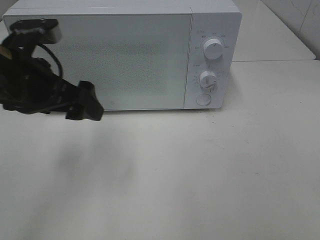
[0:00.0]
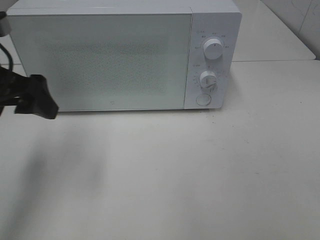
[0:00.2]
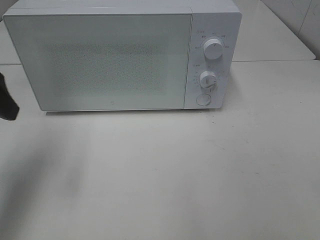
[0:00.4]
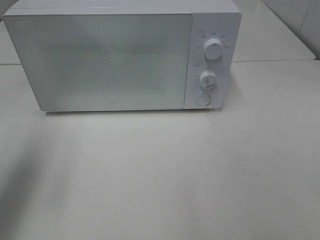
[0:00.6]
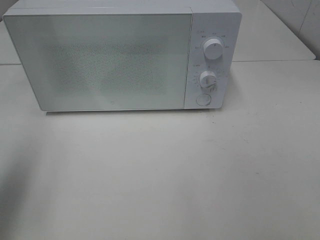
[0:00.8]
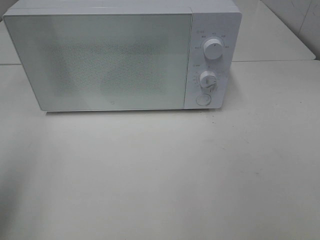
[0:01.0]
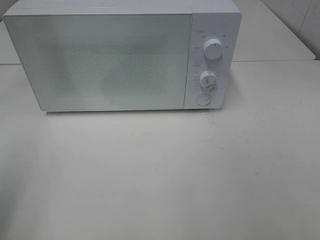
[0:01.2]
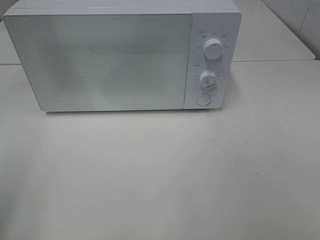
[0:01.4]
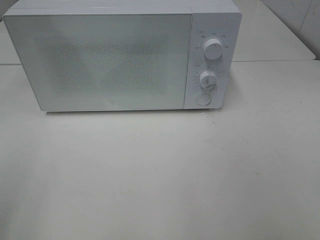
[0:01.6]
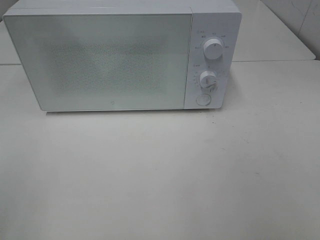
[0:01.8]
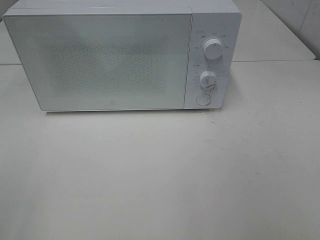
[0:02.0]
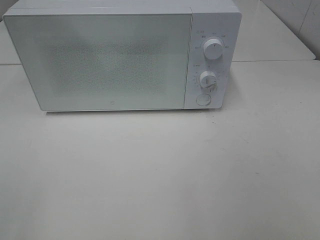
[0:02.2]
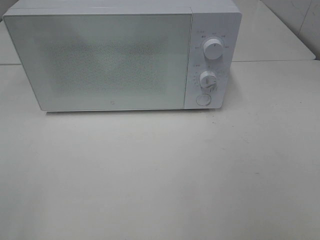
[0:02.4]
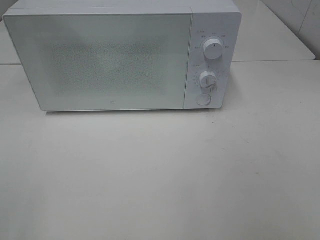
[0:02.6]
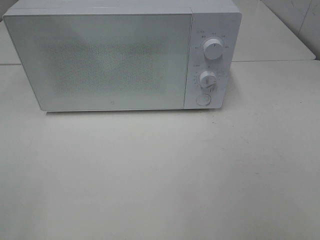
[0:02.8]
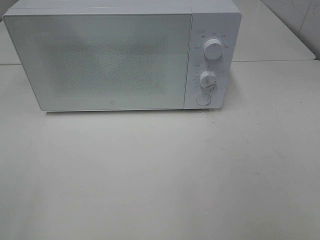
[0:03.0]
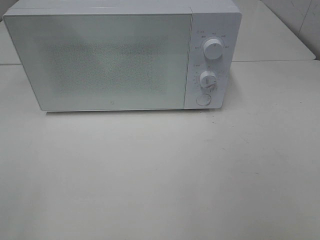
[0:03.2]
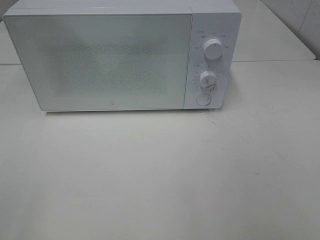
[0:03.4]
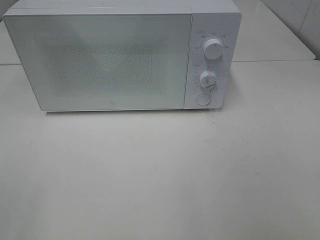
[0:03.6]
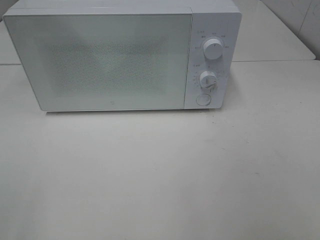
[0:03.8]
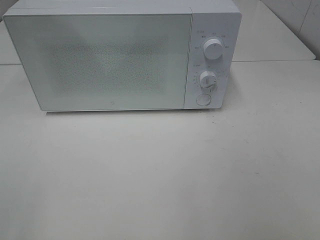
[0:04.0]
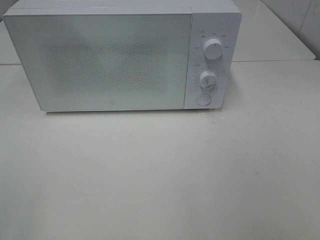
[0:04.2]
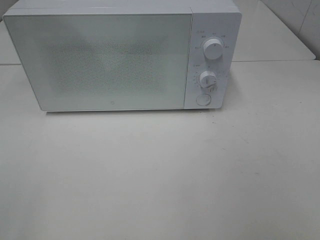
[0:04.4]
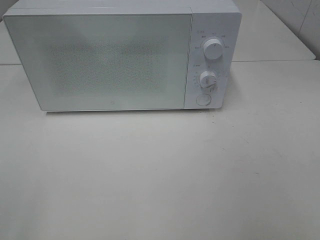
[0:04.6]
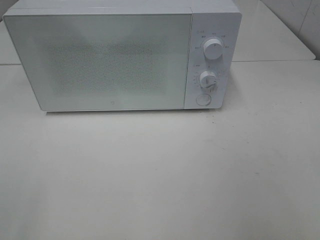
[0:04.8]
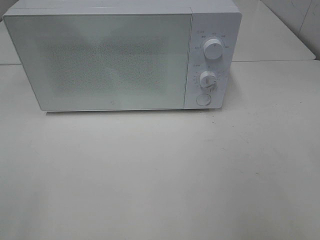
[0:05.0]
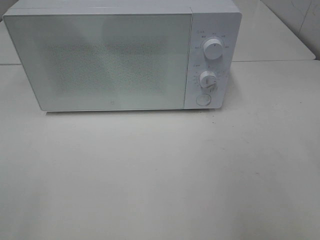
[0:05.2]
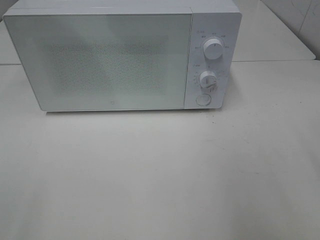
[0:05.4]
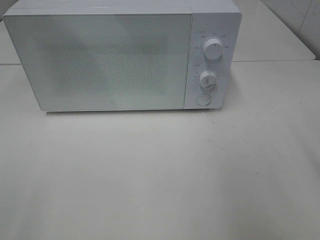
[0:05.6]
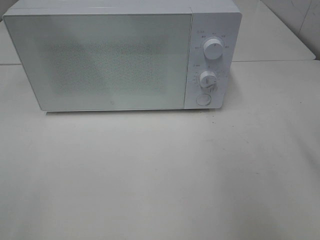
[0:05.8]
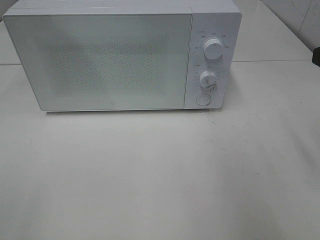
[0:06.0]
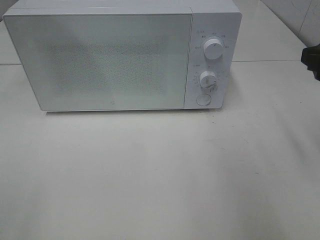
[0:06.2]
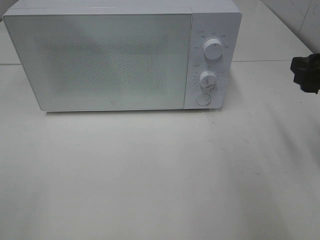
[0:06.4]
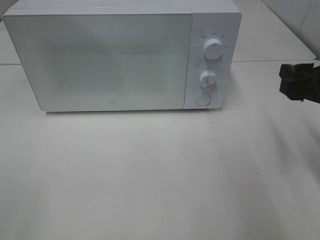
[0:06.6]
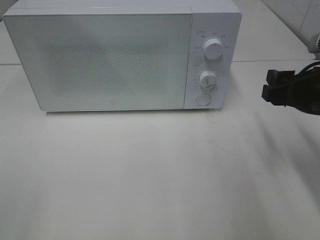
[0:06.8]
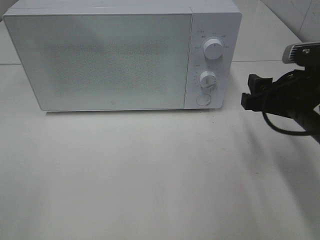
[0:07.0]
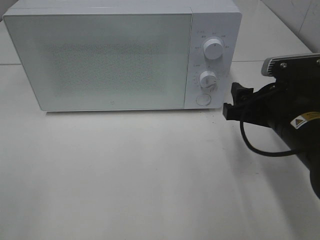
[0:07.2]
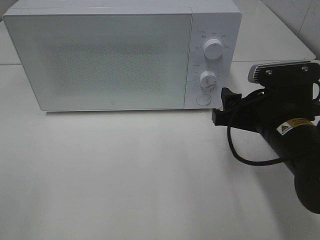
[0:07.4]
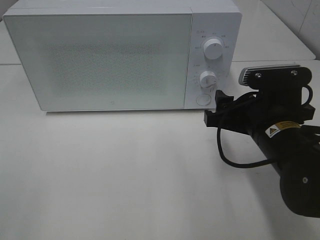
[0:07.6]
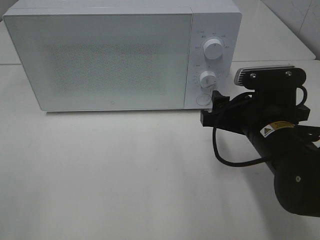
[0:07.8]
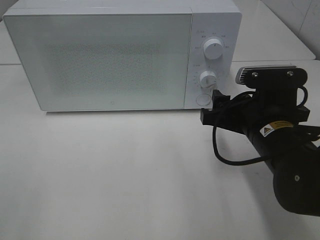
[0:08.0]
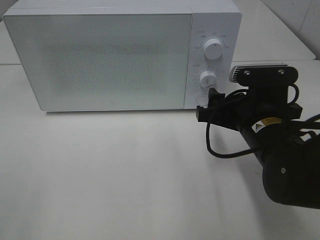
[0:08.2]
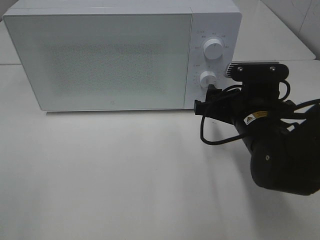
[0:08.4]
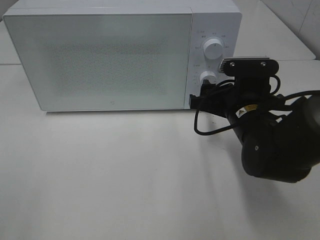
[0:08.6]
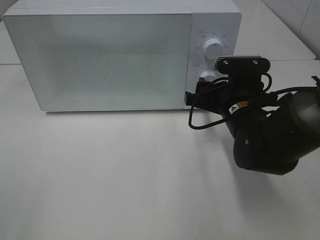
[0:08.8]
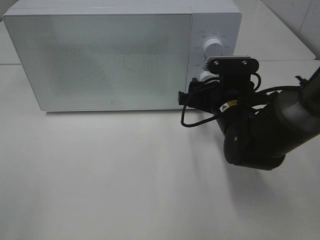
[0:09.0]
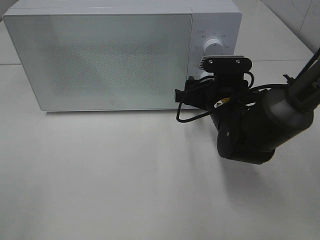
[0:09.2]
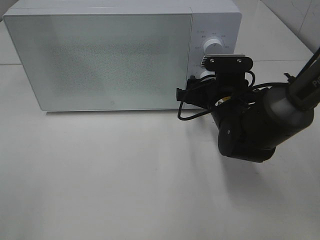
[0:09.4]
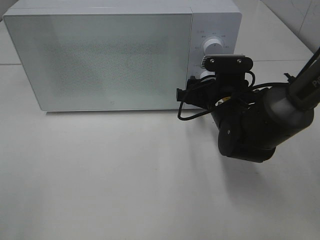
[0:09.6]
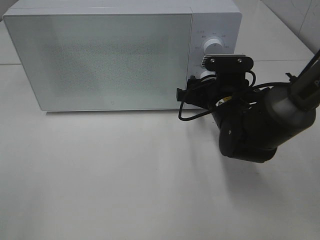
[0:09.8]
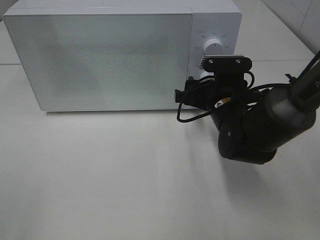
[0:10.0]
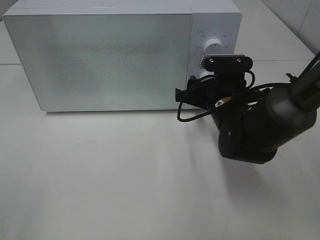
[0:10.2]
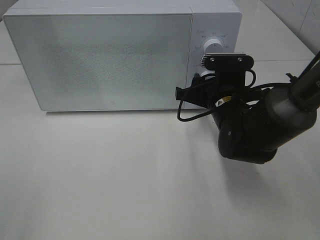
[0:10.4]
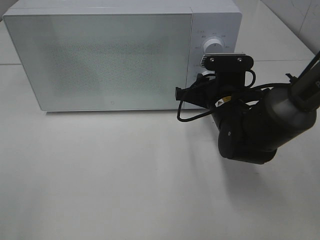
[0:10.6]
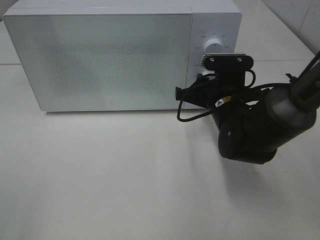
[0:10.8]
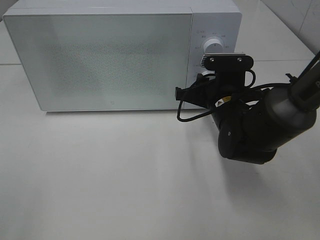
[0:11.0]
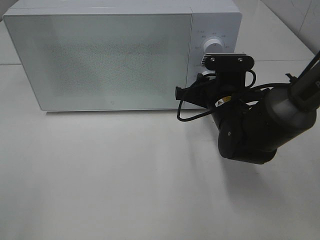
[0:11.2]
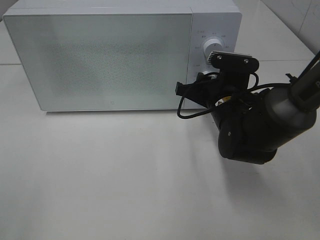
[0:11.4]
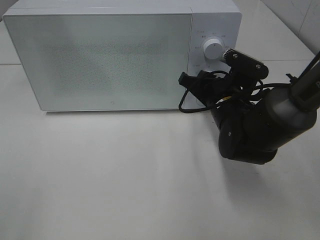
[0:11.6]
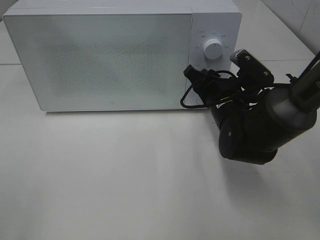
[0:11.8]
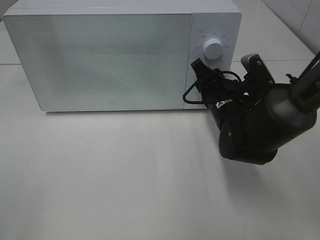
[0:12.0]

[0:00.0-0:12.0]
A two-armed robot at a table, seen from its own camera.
Task of the whole recording: Heat Sandwich.
0:00.0 to 0:01.6: The left gripper goes about 25 cm backward and to the left.
0:03.0 to 0:04.4: Neither gripper changes place.
0:06.0 to 0:07.6: The right gripper is displaced downward and to the left by approximately 15 cm.
0:07.6 to 0:09.0: The right gripper goes about 10 cm forward.
0:09.0 to 0:10.4: The grippers stay close to where they were, moving slightly.

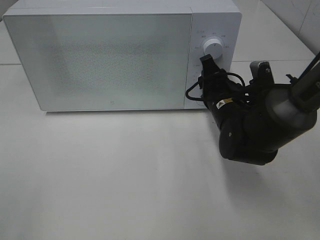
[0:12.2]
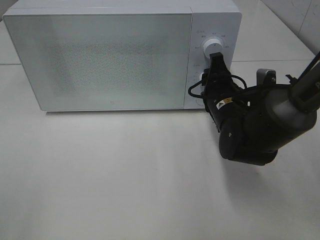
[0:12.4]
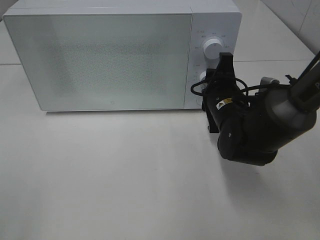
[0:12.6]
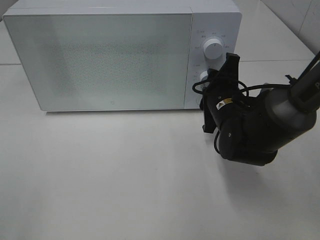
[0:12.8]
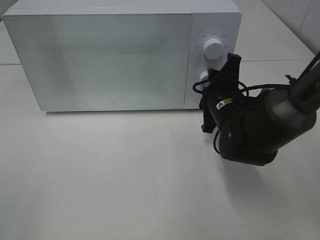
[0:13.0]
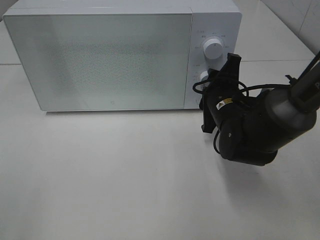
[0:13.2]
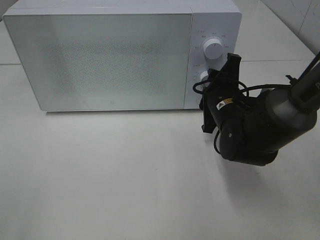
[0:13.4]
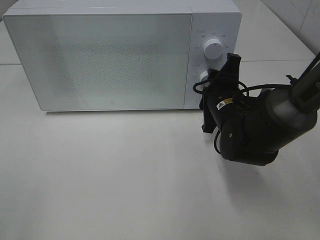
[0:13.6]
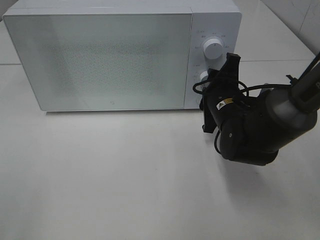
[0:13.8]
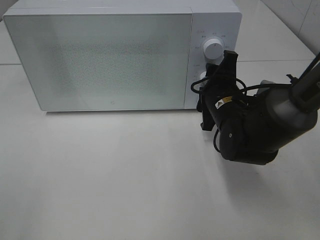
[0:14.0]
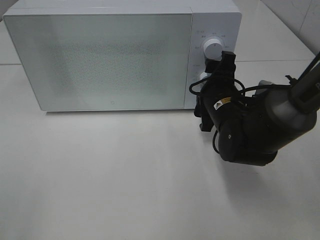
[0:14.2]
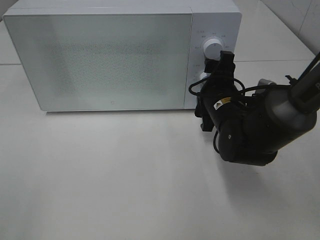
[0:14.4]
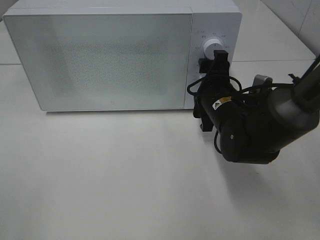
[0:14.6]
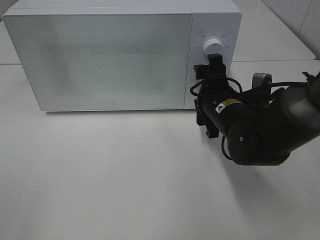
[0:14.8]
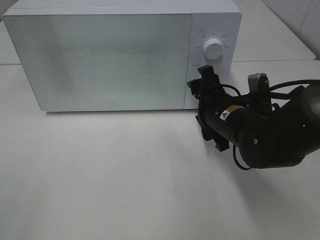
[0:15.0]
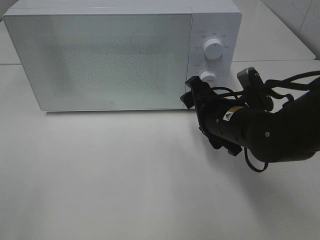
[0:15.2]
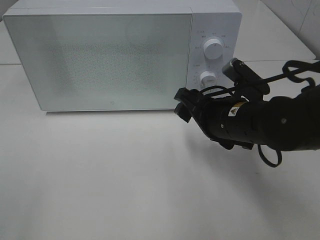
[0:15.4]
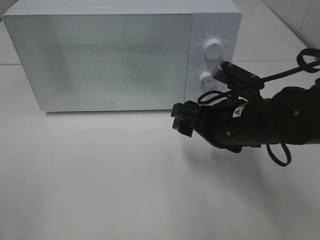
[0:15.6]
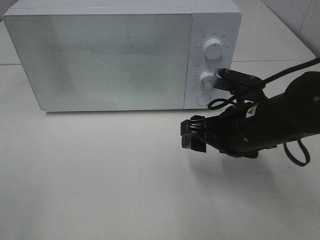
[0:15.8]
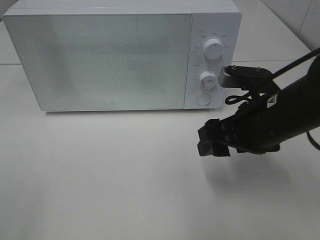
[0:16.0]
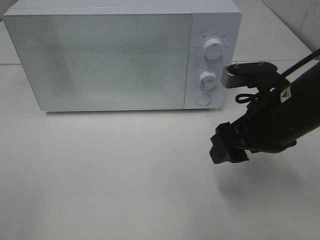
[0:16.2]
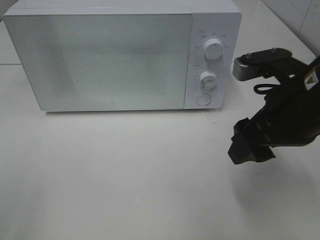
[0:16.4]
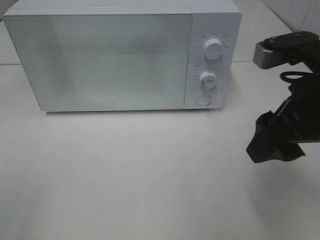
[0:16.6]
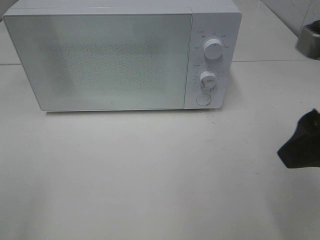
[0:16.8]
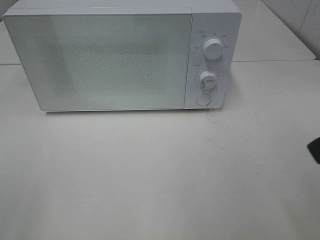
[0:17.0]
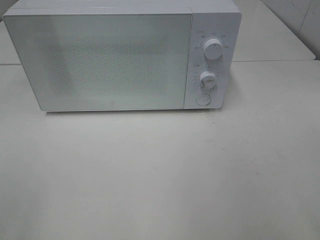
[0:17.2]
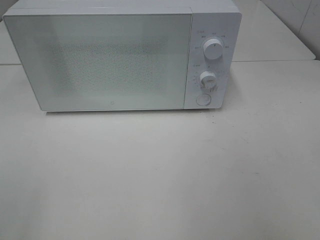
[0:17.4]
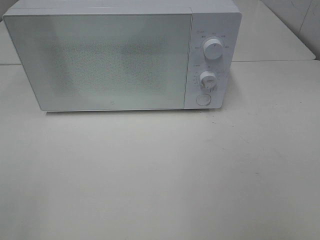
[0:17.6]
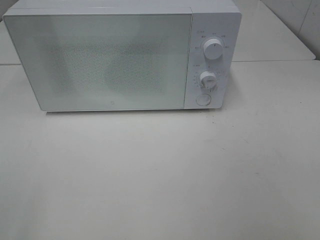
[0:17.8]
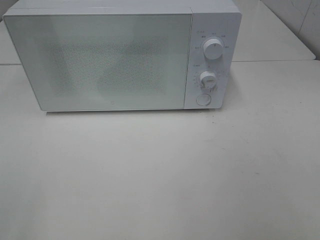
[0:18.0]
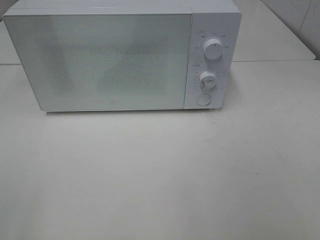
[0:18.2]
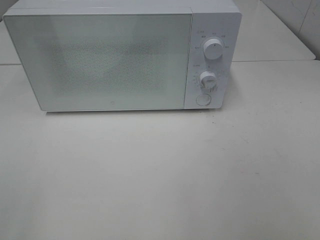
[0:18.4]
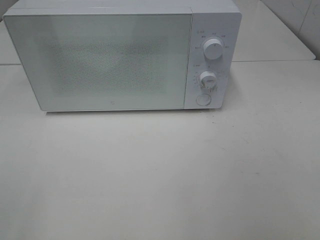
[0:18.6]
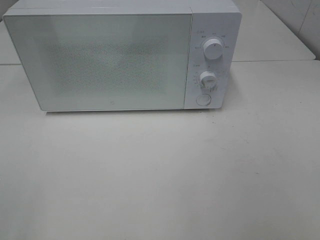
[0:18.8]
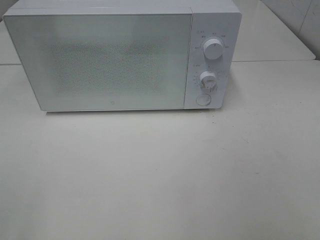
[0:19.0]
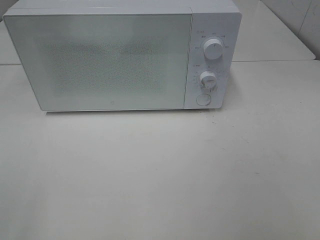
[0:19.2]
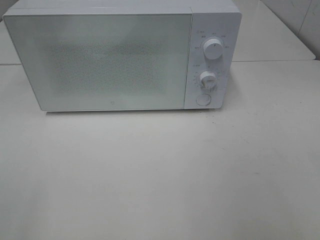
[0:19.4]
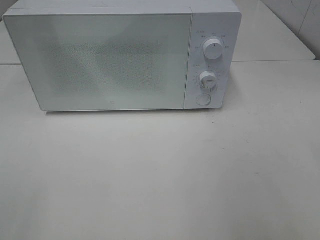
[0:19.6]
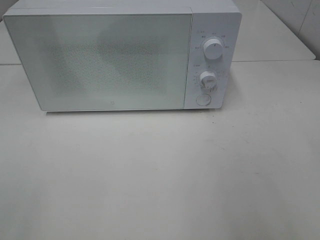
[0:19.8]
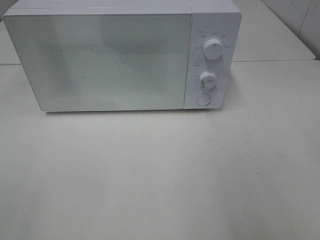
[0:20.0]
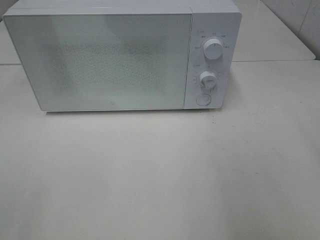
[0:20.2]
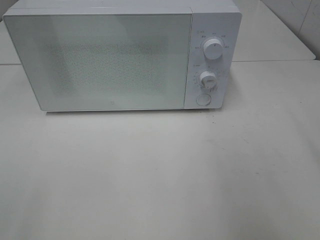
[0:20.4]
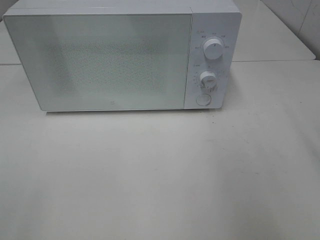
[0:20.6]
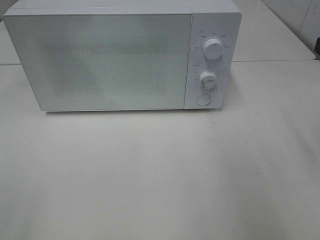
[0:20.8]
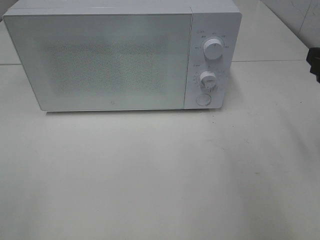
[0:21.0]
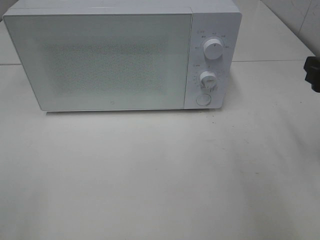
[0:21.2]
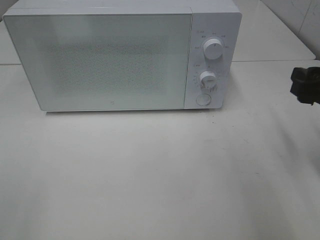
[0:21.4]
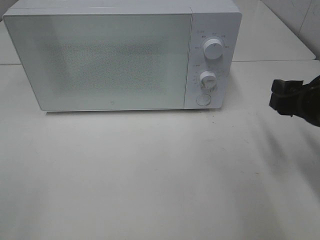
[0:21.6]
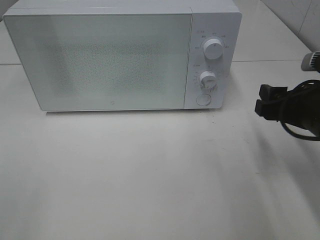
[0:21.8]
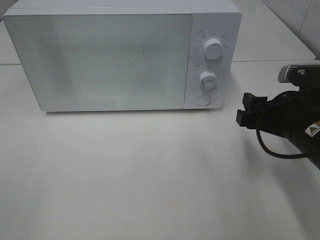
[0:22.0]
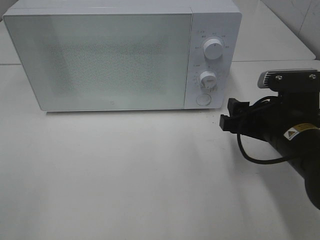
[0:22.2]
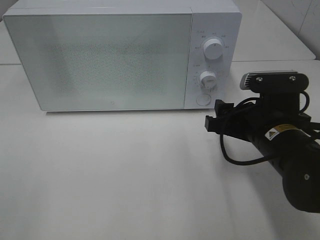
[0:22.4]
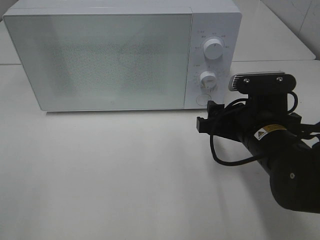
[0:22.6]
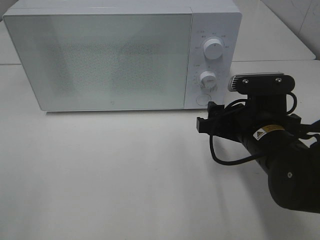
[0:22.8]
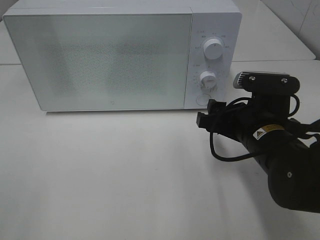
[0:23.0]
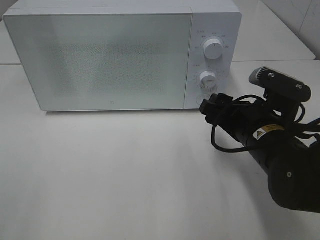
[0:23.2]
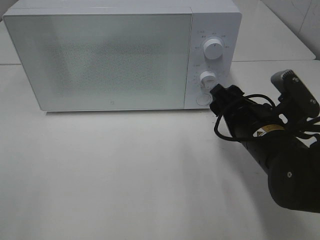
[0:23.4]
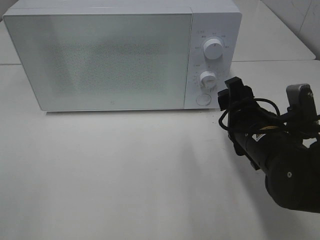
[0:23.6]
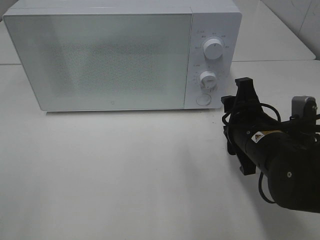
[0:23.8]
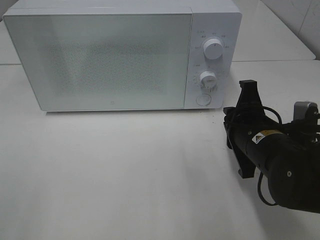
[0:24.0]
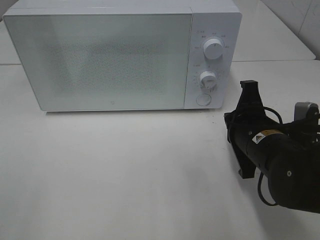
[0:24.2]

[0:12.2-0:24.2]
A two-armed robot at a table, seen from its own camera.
Task of the whole recording: Heat Sandwich.
Step, 0:12.2 to 0:15.0: Right hand: twist timer button.
0:15.2 to 0:16.6: The right gripper moves upward, backward and to the right, roughly 15 cm.
0:16.6 to 0:18.2: The right gripper travels backward and to the right by approximately 20 cm.
0:19.8 to 0:21.2: The right gripper goes some 15 cm forward and downward.
0:21.2 to 0:22.6: The right gripper shifts some 15 cm to the left and downward.
0:22.6 to 0:24.2: The right gripper closes.
